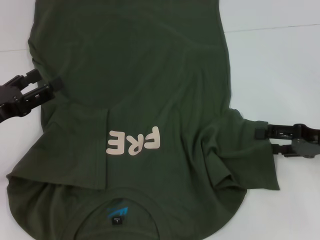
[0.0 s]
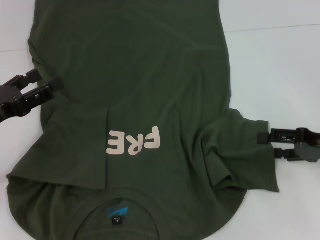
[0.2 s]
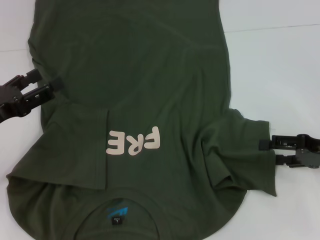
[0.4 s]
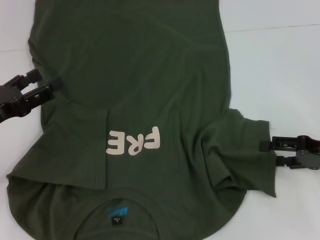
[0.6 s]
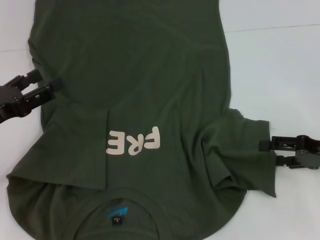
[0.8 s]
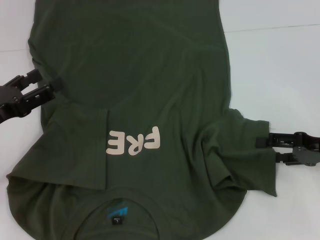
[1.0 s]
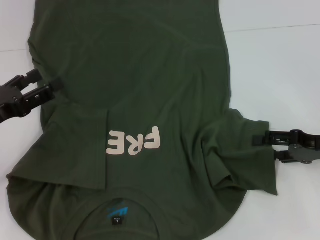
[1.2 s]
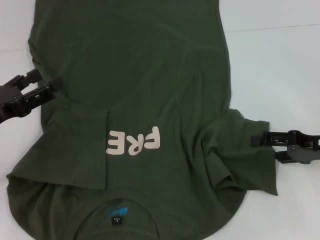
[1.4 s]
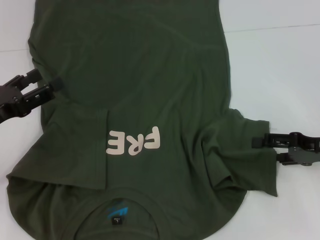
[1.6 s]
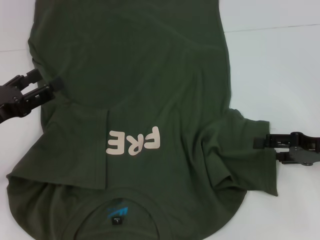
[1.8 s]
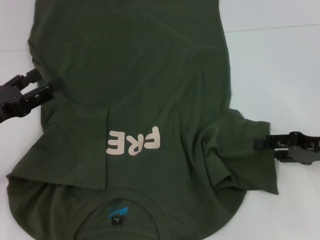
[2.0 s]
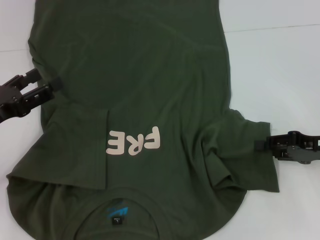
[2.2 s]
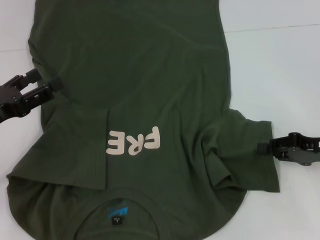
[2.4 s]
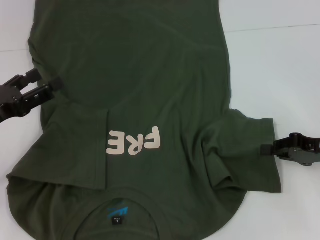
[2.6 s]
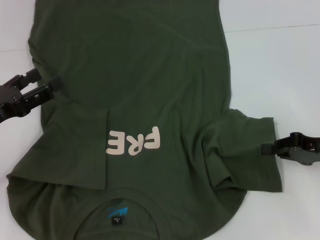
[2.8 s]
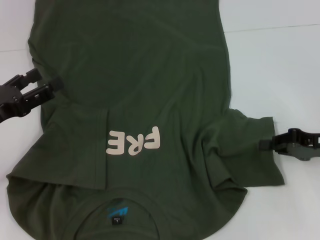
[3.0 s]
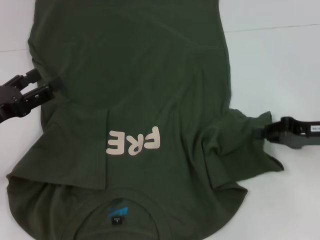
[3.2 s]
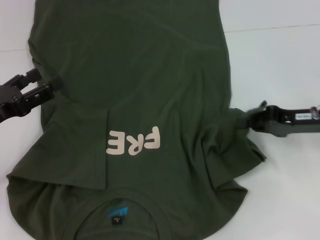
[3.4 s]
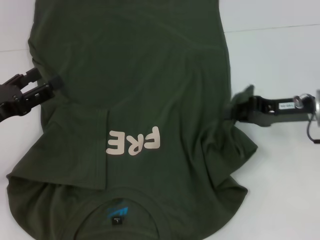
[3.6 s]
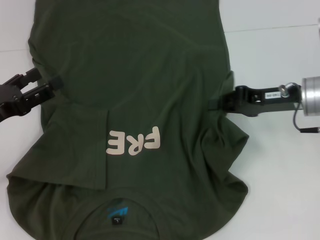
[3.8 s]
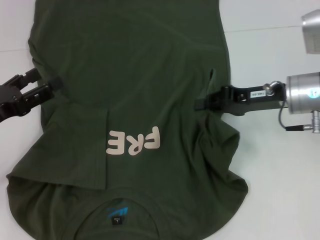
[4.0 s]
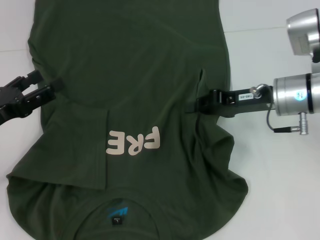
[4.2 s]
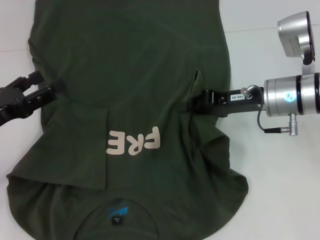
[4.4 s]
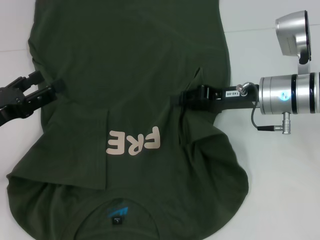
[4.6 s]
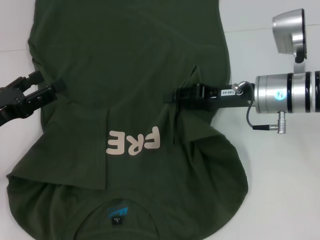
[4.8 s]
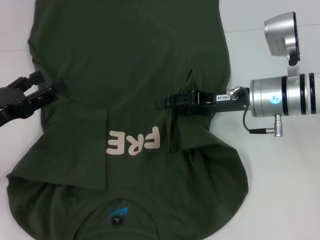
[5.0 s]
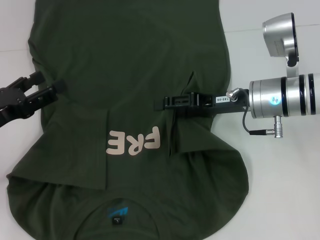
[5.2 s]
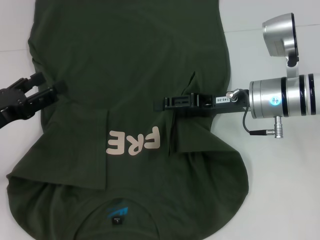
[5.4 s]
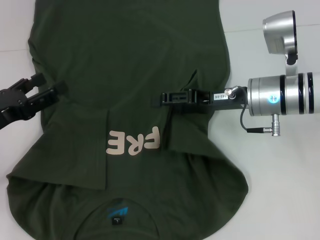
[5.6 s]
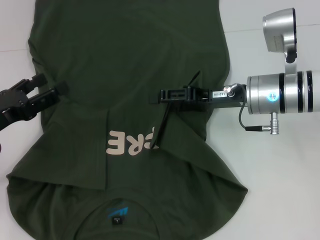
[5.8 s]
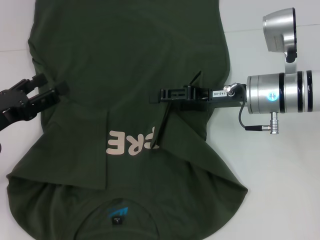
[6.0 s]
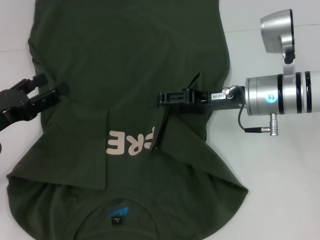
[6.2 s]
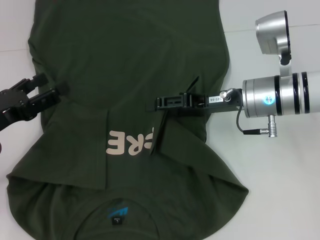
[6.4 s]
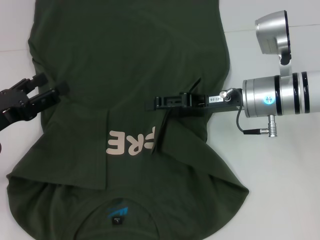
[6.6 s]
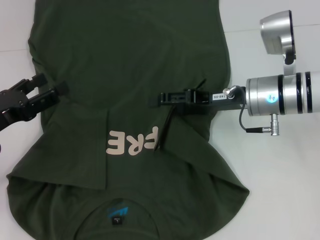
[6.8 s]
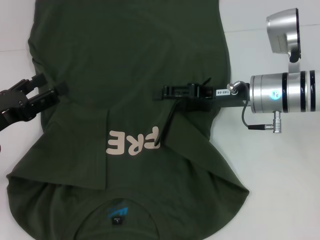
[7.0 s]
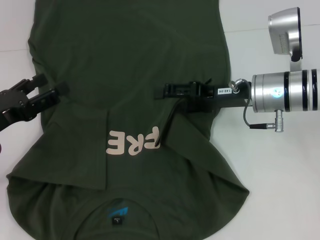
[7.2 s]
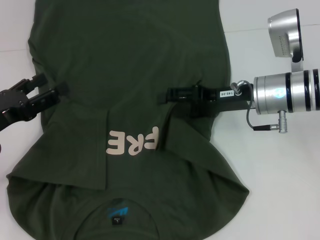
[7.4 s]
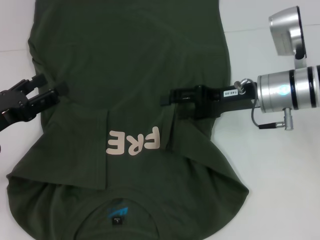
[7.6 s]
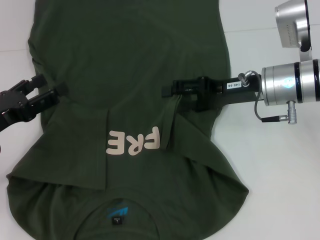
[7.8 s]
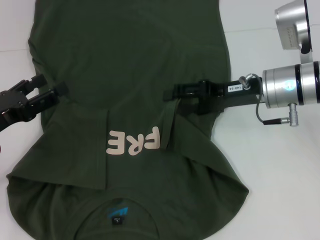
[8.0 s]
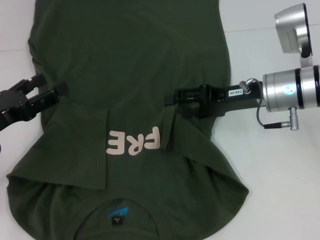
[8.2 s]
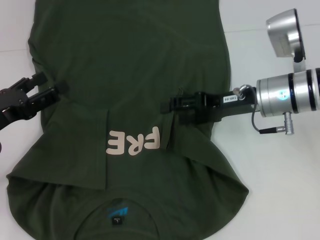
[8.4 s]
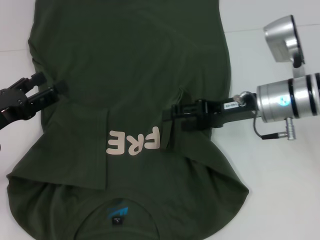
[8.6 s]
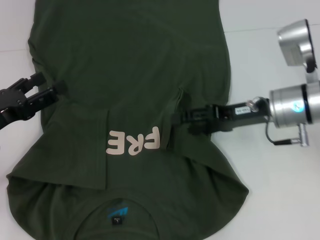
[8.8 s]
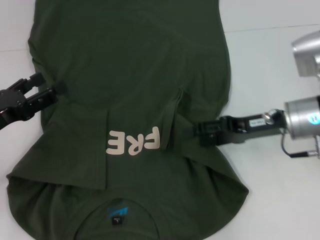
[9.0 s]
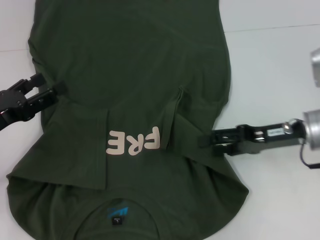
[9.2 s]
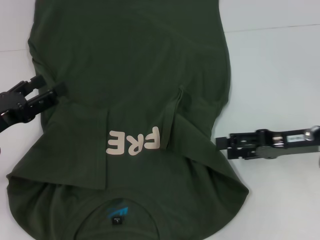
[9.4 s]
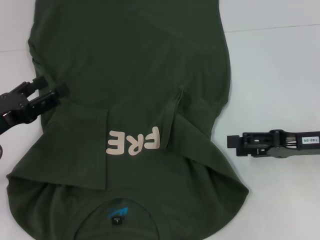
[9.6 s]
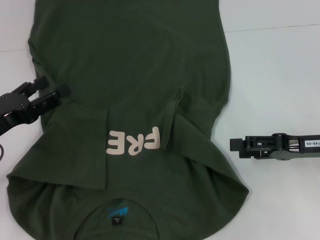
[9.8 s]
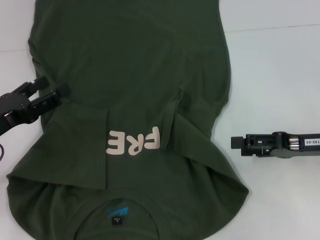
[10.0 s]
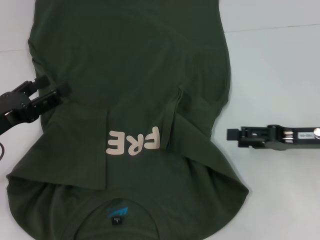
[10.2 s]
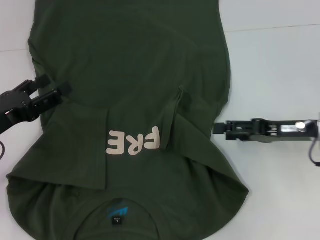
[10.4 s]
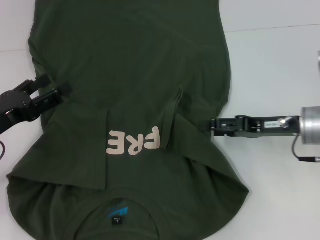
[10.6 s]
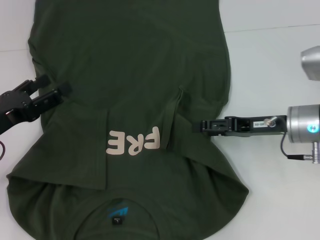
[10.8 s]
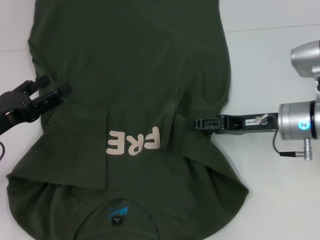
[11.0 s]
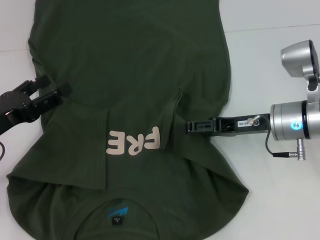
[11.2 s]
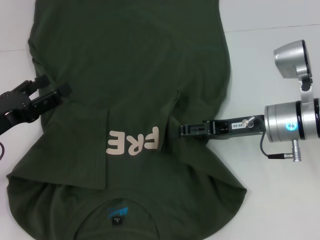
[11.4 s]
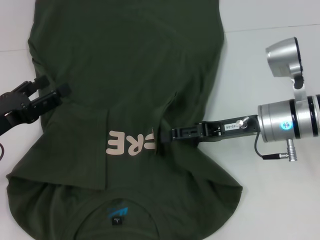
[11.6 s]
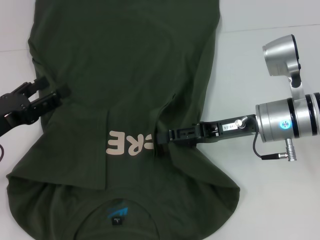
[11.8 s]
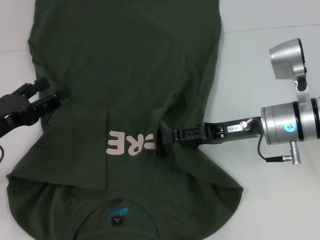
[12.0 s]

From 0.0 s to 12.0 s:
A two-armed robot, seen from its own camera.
Step, from 0.0 s to 8.0 s: Fold the bottom right sleeve with your right hand.
From 0.0 s to 1.6 s: The grippers stay close to where they were, moving slightly.
From 1.6 s to 3.0 s: The right gripper closes.
From 3.0 s to 4.4 s: The right gripper shifts approximately 15 cm to the left and forward.
From 4.4 s to 6.0 s: The right gripper opens.
From 6.0 s to 7.6 s: The grippers stay close to where they were, moving slightly.
From 7.6 s to 9.0 s: The right gripper shifts by about 5 cm.
From 10.4 s to 12.0 s: The right gripper is displaced to the left by approximately 10 cm.

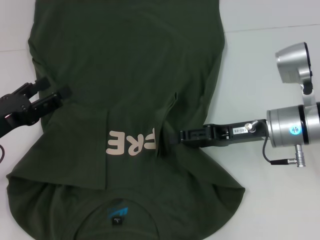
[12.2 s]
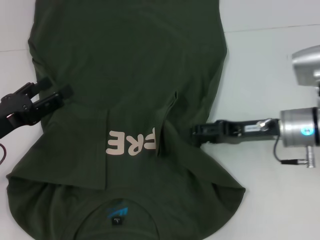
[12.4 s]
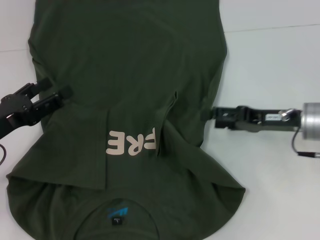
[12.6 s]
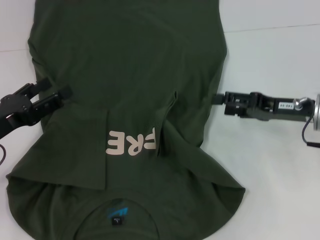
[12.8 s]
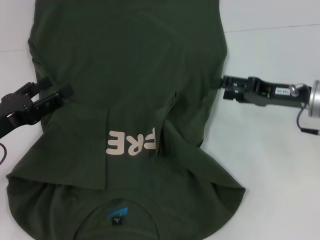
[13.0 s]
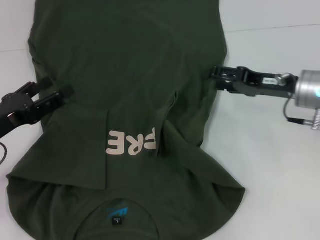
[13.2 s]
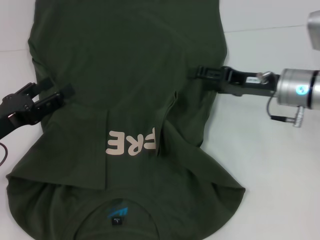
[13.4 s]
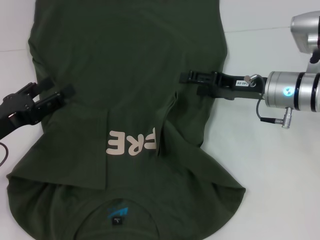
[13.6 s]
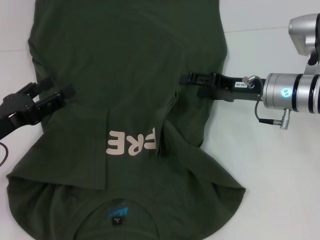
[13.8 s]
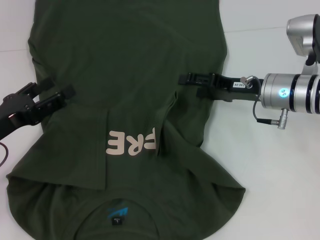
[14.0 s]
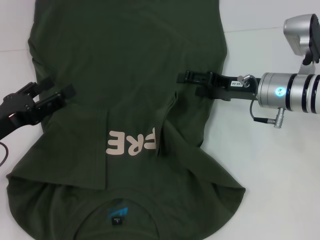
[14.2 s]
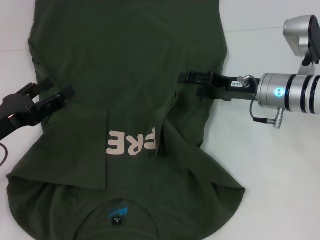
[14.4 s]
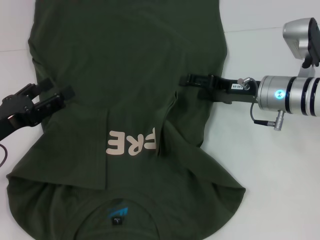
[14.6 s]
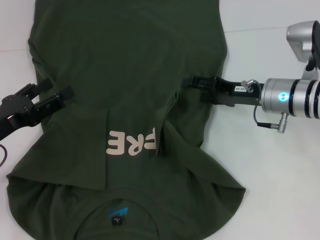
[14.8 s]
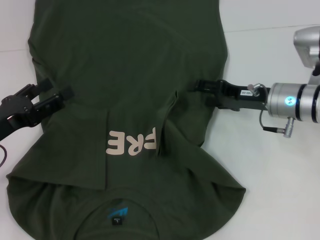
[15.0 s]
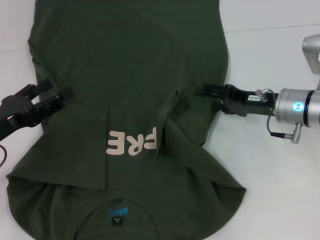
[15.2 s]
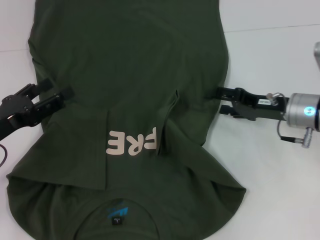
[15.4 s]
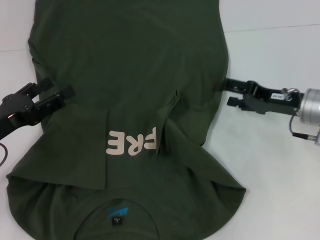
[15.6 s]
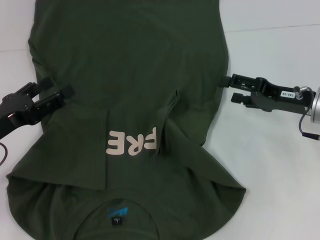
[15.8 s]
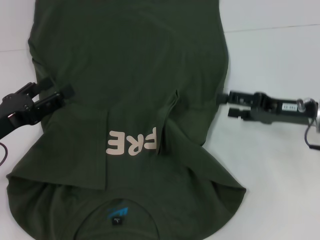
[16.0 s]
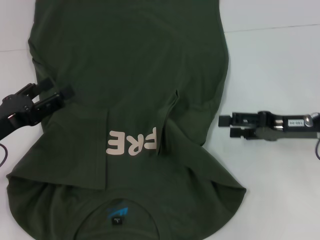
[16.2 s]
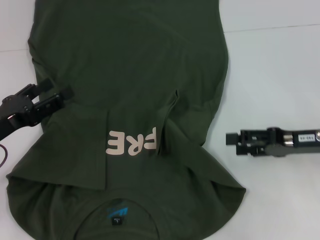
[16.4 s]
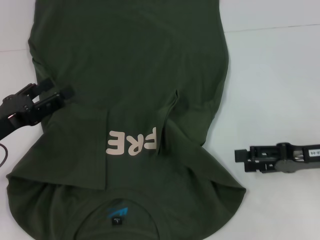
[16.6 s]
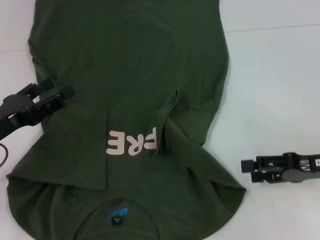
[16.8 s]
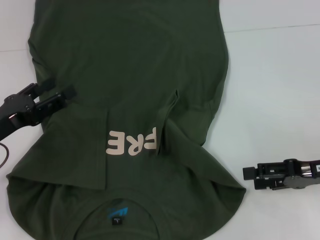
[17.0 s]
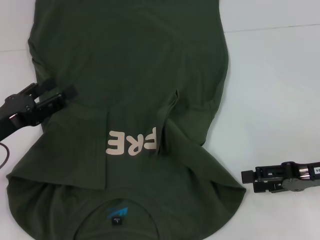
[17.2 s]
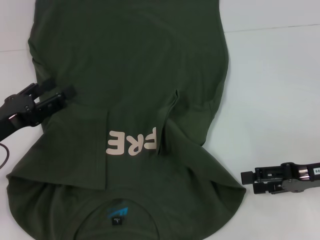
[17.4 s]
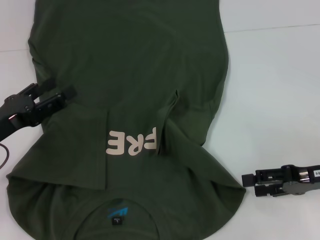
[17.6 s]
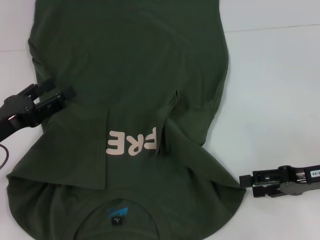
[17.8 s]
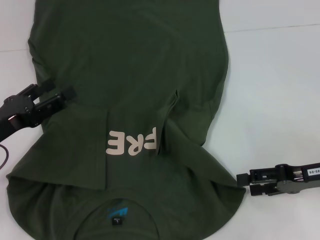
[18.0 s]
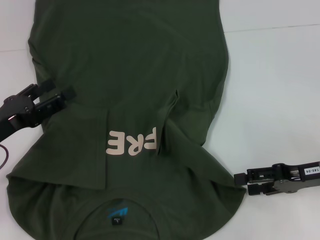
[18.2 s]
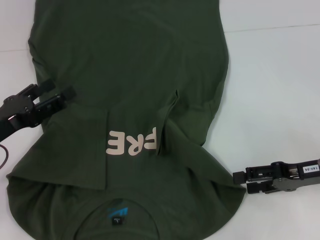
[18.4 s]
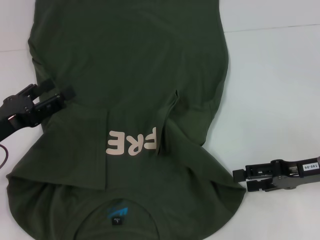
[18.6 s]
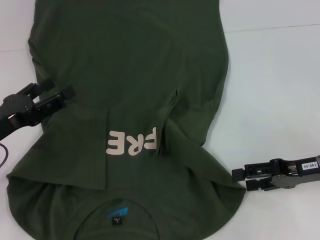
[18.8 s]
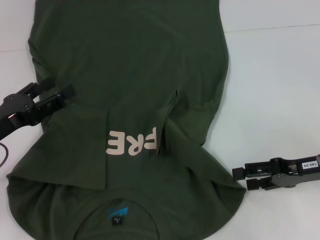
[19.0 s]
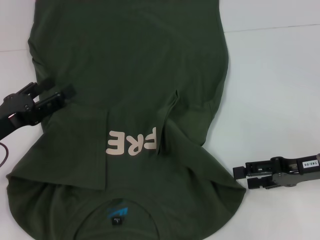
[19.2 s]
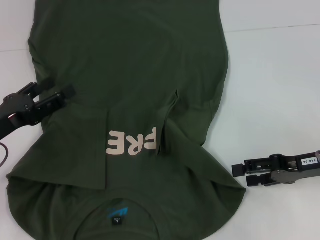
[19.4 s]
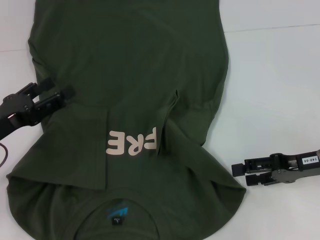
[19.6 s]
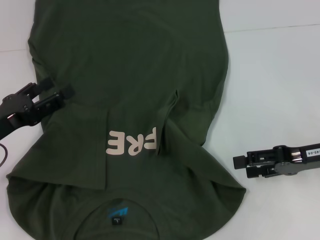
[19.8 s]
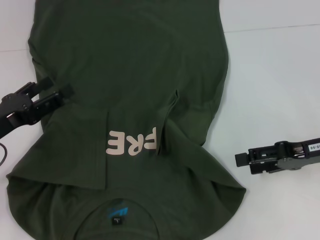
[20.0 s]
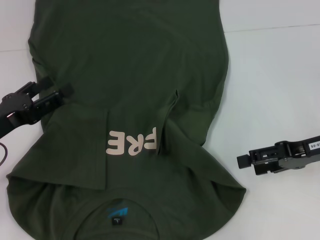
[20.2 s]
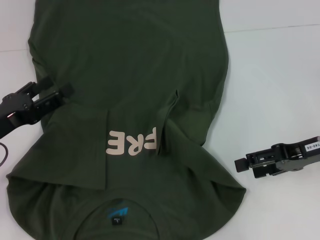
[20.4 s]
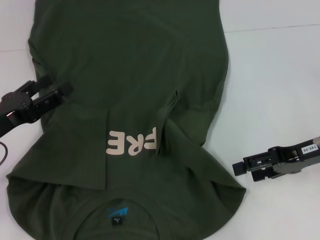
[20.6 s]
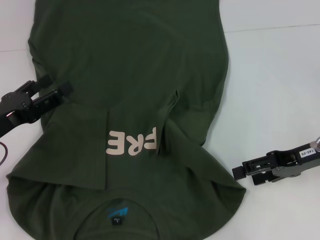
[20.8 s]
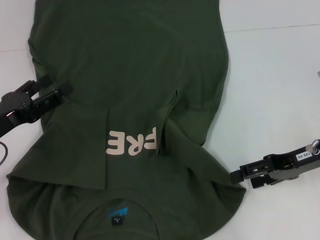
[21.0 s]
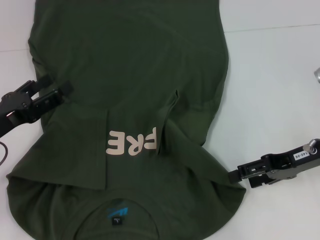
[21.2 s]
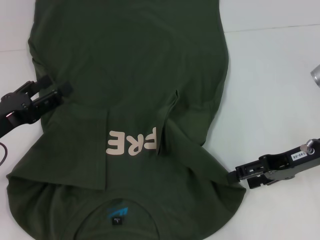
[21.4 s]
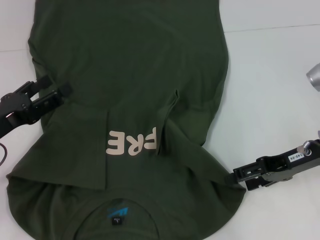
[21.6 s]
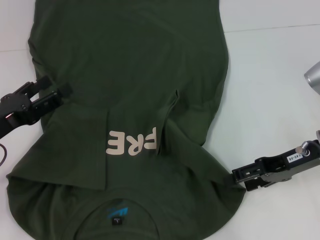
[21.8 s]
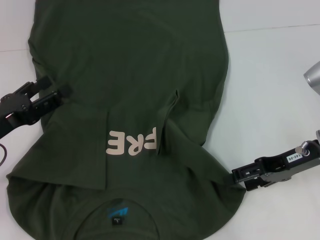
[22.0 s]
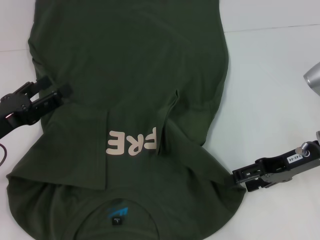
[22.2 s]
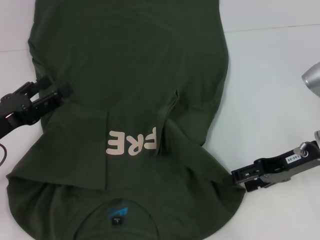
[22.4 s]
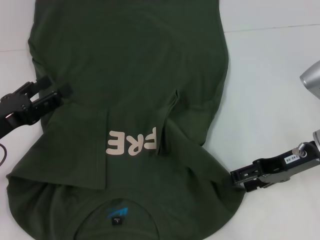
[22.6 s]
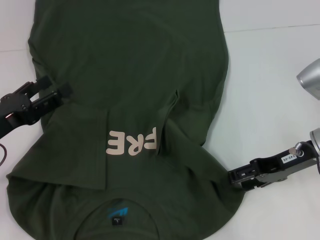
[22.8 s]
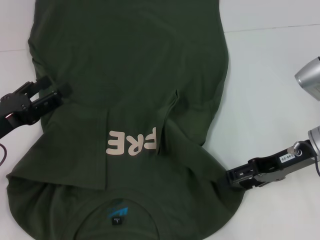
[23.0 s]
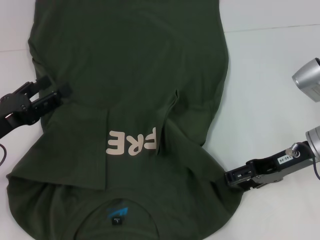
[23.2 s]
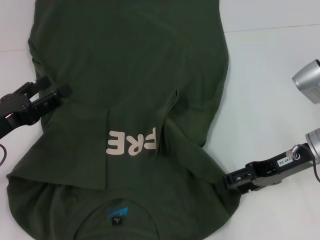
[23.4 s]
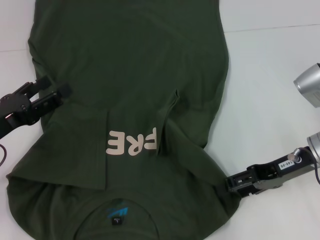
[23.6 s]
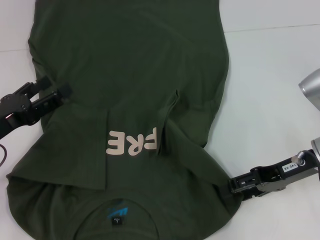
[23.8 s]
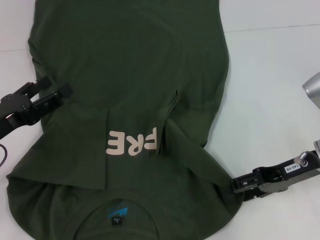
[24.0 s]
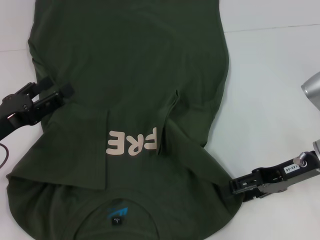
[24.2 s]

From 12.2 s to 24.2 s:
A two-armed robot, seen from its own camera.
From 13.8 s to 15.2 s: The grippers move only a little.
From 15.2 s to 16.6 s: The right gripper shifts approximately 10 cm backward and to the right.
From 16.6 s to 19.8 s: The grippers stay close to where they were, moving slightly.
From 19.8 s to 21.2 s: The grippers make only small movements.
From 21.2 s to 22.6 s: Neither gripper changes place.
From 22.6 s to 24.2 s: The grippers move only a little.
